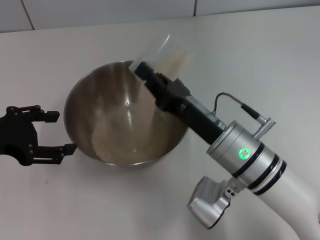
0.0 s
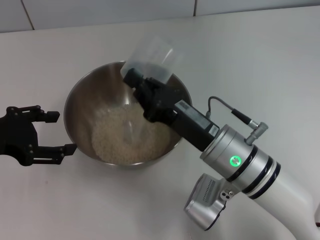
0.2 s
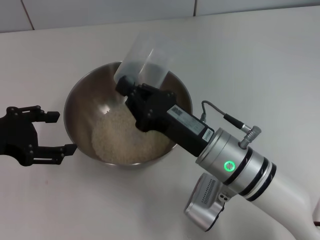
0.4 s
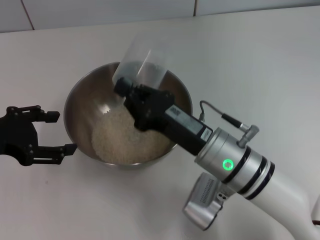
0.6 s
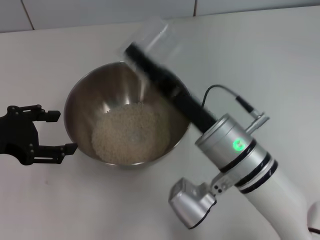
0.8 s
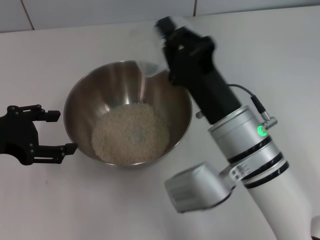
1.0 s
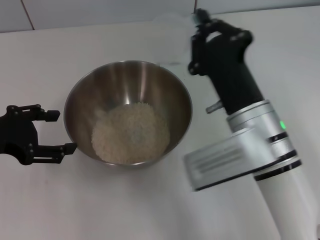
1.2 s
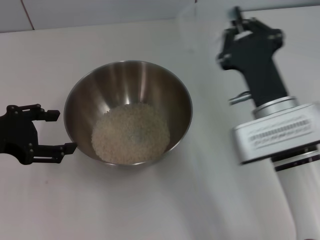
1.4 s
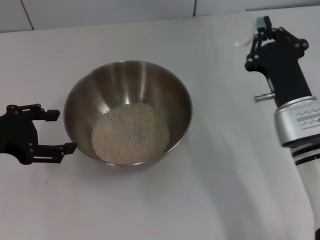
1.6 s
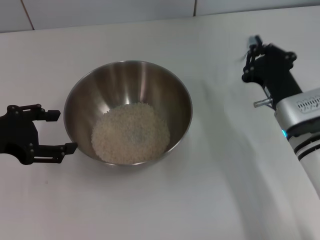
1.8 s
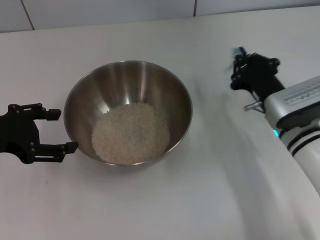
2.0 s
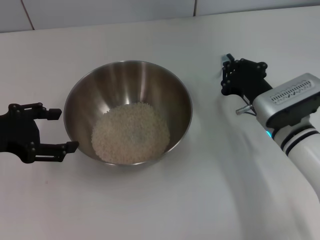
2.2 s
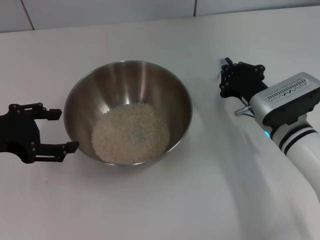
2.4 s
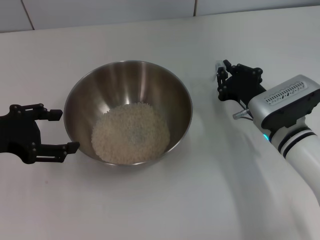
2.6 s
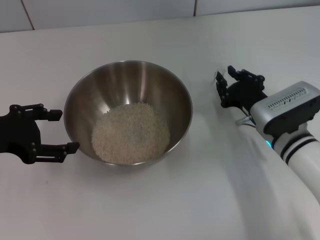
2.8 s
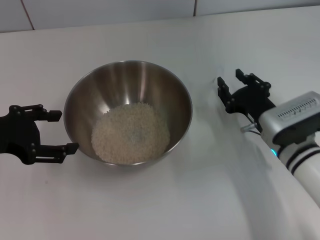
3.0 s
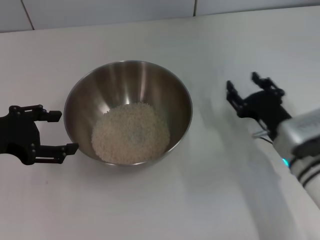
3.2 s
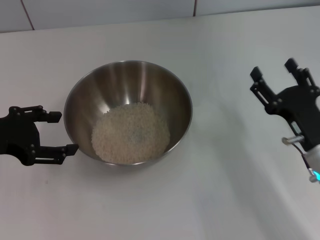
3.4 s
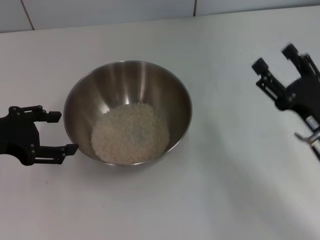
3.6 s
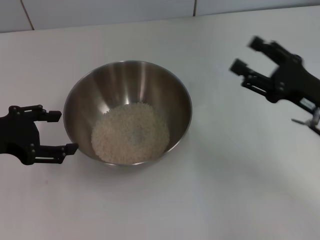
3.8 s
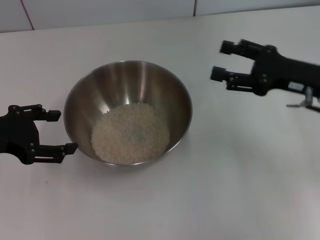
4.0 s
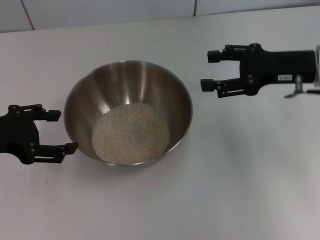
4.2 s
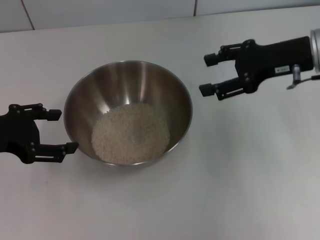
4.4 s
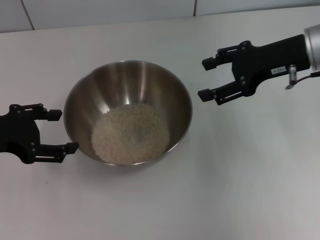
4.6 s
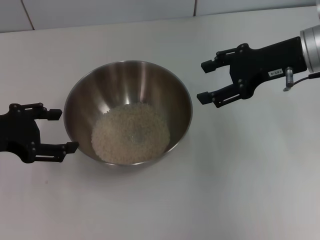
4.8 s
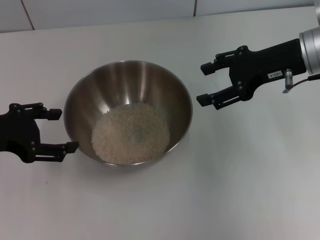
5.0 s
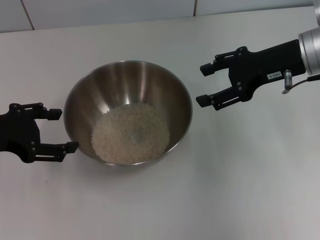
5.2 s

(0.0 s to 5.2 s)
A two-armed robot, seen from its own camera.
Task of the whole recording: Place the bowl in the middle of the table with one hand and pour the rice from the grain cup into it with the other hand.
Step, 0.0 s - 1.2 s: Pour the rice from the cup into the bowl with the right gripper.
Step, 1.4 s - 3.2 s: Place the cup on the table with the right gripper.
0.0 s - 1.8 s: The right gripper shifts some 10 cm to the right.
1.8 s - 3.4 s: The right gripper heads backward, covering approximately 5 cm, and opens.
3.4 s - 5.2 s: The right gripper travels upward and forward by some 20 cm.
